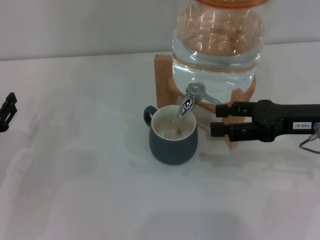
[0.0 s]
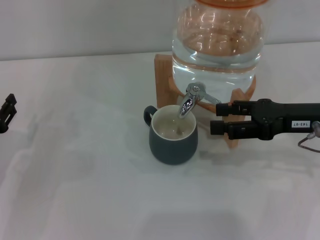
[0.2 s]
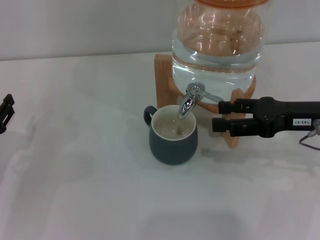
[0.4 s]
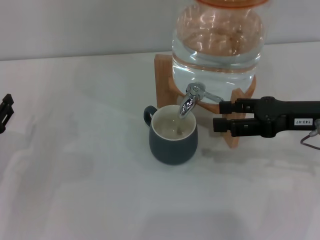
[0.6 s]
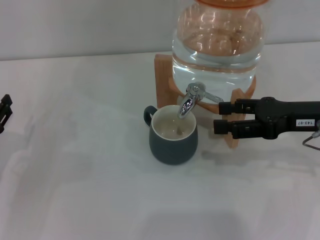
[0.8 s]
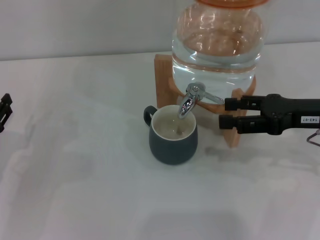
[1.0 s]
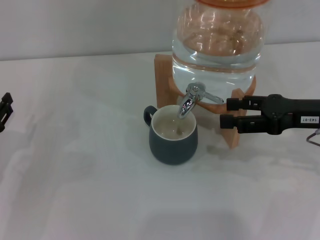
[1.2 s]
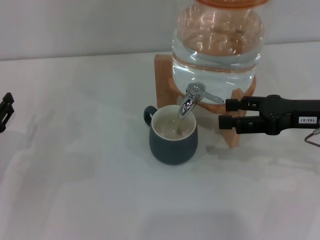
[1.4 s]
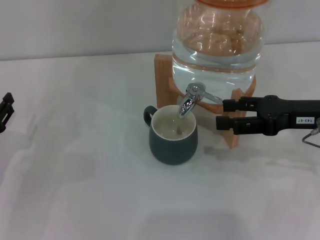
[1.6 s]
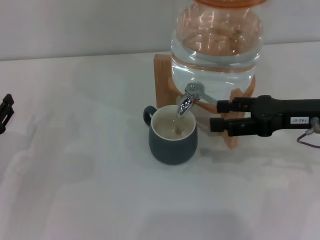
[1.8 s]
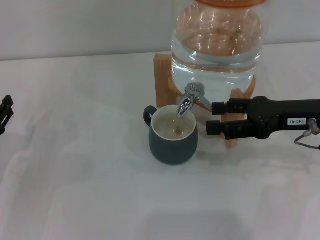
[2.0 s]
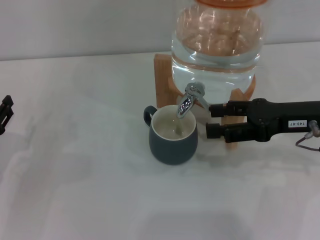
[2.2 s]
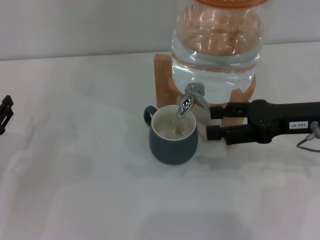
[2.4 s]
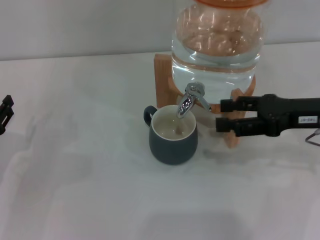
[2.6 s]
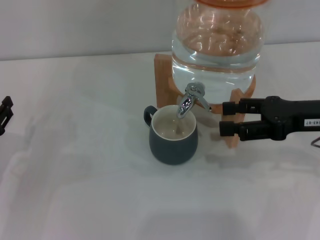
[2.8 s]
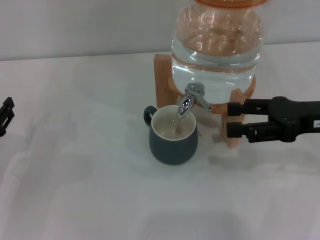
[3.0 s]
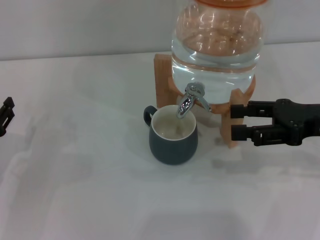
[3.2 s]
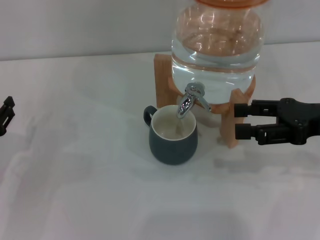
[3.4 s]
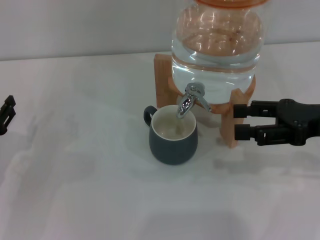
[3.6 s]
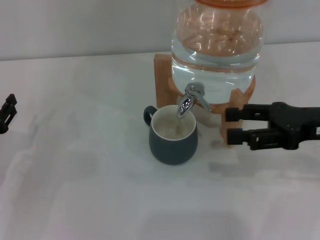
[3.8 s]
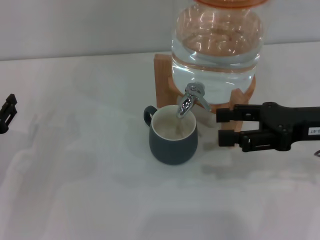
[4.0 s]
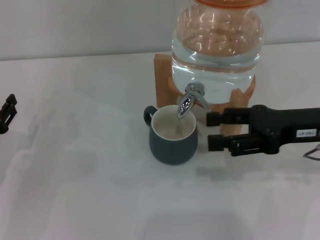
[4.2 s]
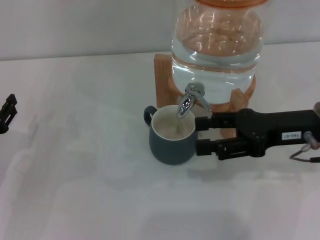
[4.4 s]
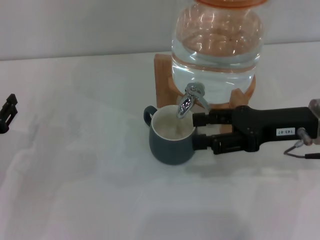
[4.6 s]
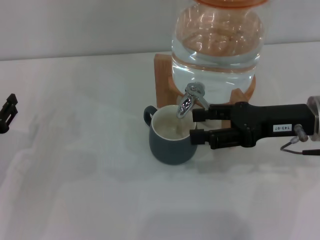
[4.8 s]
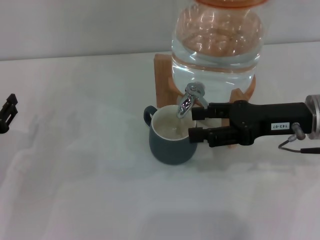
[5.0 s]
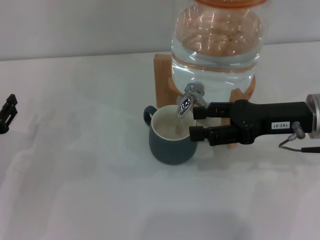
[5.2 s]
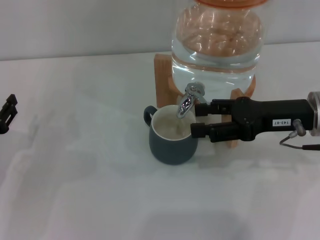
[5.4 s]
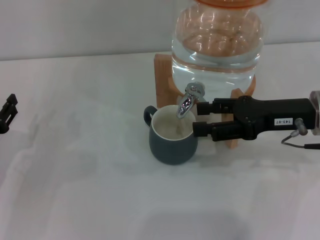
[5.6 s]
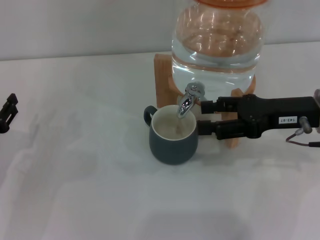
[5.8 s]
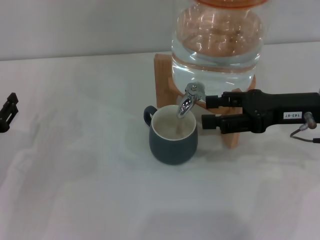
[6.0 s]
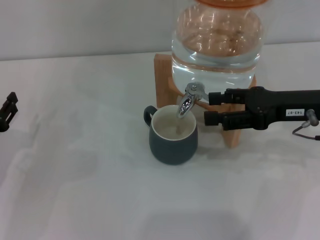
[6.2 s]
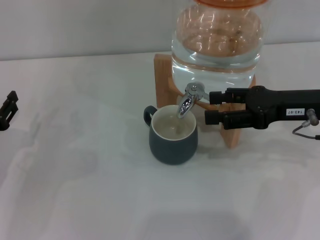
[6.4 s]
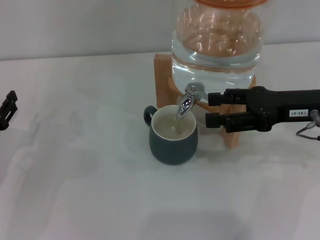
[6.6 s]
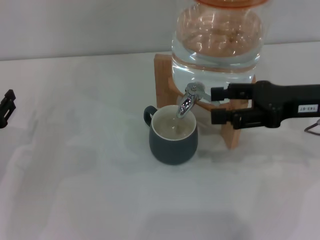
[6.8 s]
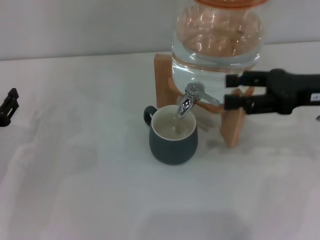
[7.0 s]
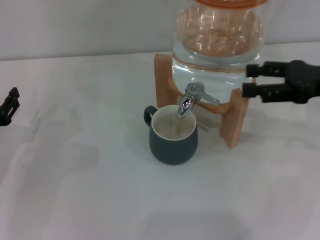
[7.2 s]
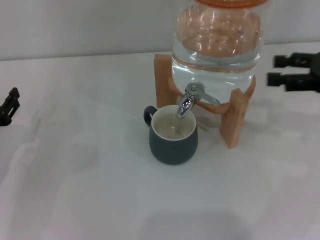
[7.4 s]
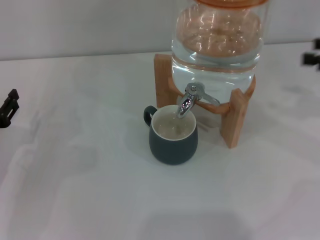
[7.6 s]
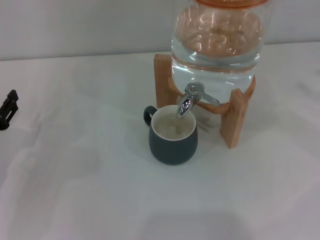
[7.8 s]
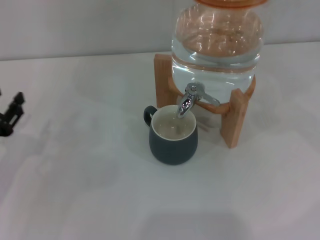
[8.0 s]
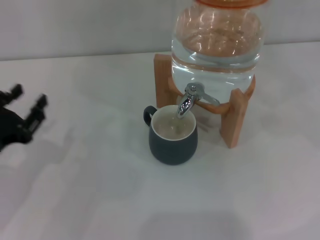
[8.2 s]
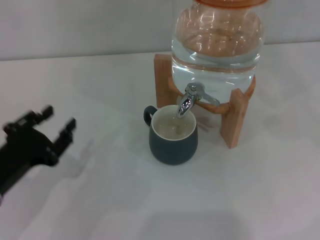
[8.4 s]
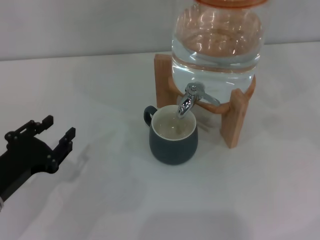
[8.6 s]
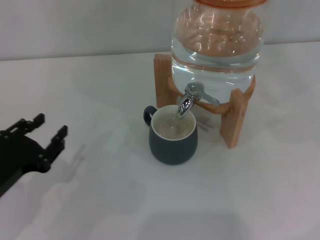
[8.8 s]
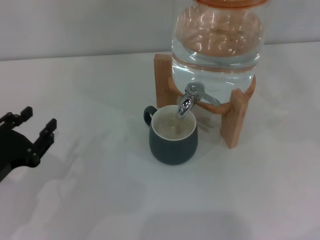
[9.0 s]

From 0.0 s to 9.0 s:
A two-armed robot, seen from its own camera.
Task of the whole recording: the left gripper pick up the black cup and place it horizontally under the faucet, the right gripper turn on the faucet to fill the cup, and then turn off the faucet.
Step, from 0.0 s to 4.4 s: Open the dispenser valve and fill the cup with water with the right gripper.
Step, from 4.8 s to 7.0 s: Close the dispenser valve with the right gripper.
From 0.0 s to 1.6 s: Both grippers stay about where they are.
From 1.6 s to 6.0 s: The grippers make only small movements.
From 6.0 s to 7.6 s: The right gripper shifts roughly 15 cm to the right.
From 7.6 s to 9.0 s: The left gripper heads backward, covering roughly 5 cm.

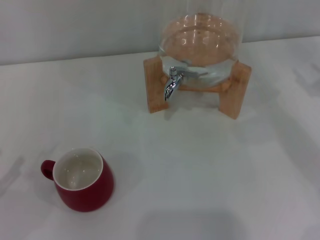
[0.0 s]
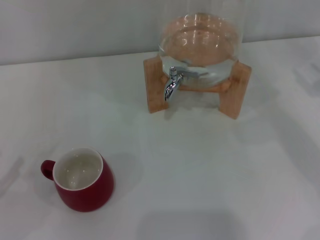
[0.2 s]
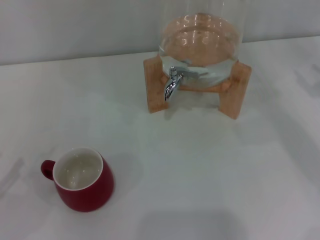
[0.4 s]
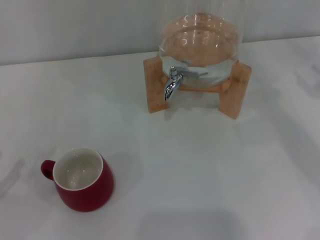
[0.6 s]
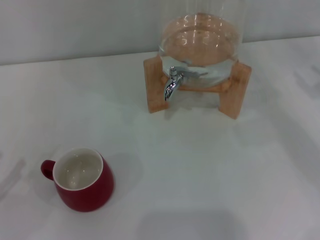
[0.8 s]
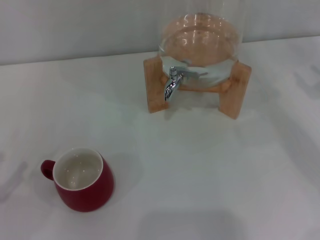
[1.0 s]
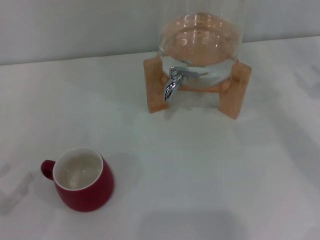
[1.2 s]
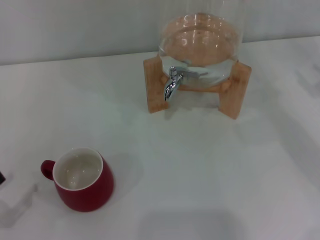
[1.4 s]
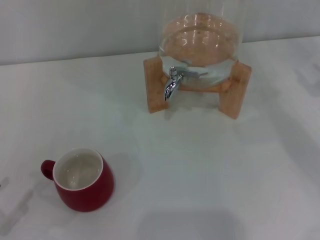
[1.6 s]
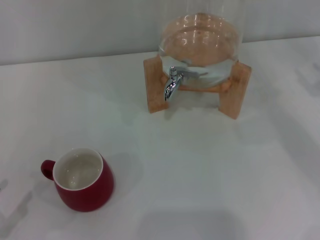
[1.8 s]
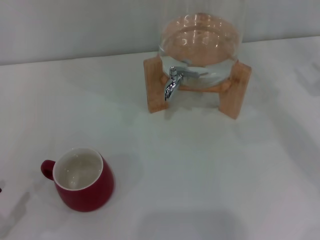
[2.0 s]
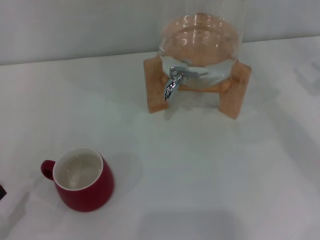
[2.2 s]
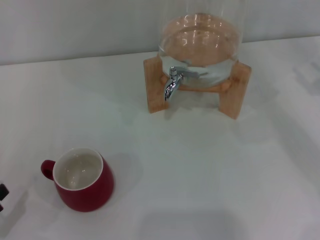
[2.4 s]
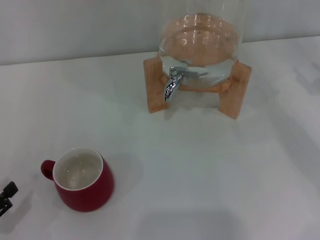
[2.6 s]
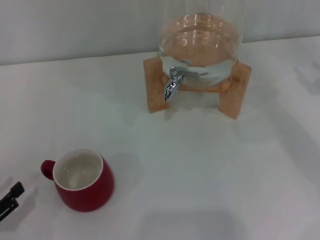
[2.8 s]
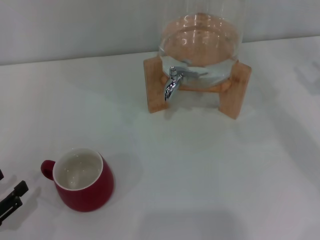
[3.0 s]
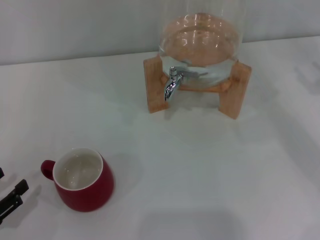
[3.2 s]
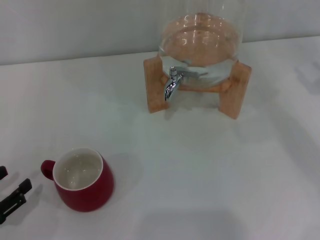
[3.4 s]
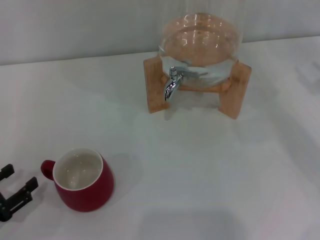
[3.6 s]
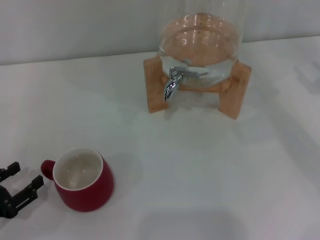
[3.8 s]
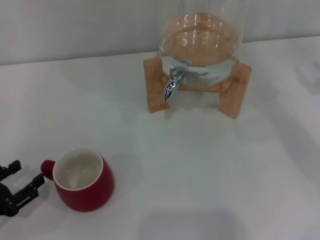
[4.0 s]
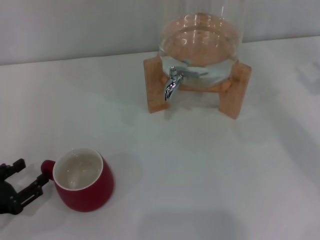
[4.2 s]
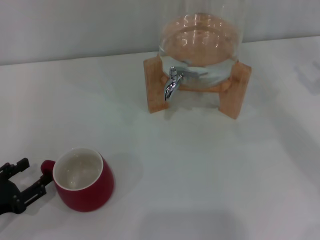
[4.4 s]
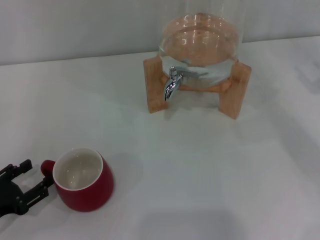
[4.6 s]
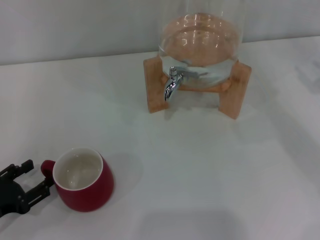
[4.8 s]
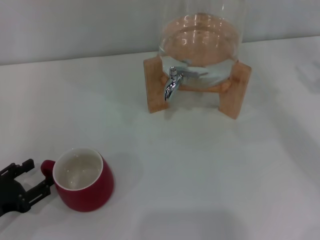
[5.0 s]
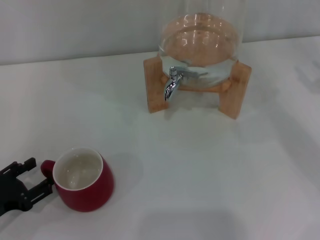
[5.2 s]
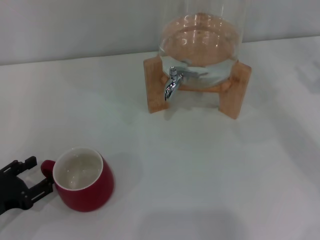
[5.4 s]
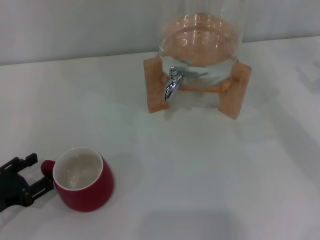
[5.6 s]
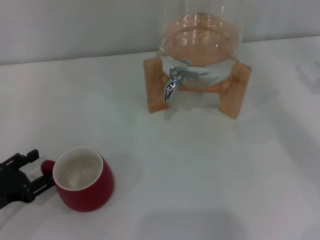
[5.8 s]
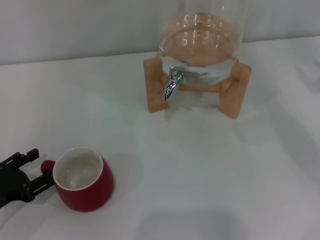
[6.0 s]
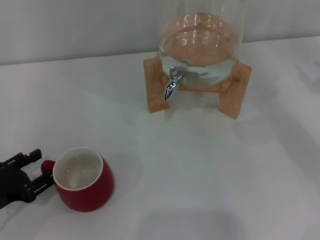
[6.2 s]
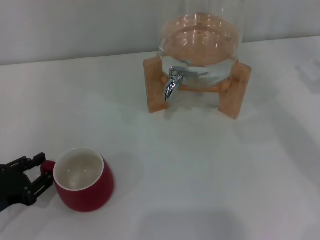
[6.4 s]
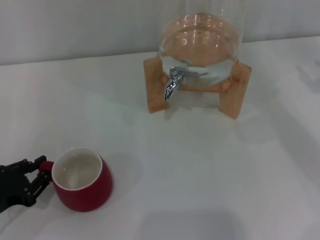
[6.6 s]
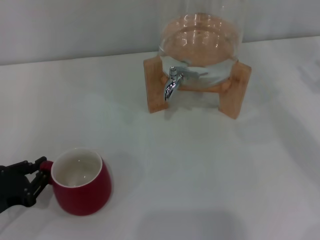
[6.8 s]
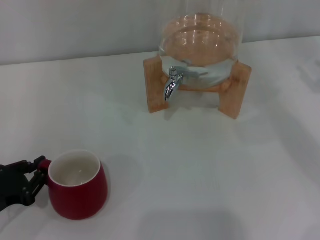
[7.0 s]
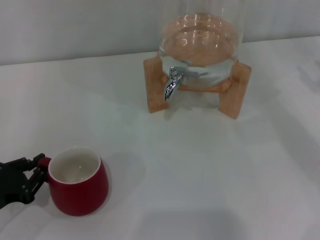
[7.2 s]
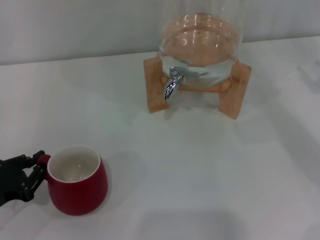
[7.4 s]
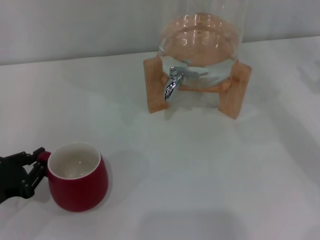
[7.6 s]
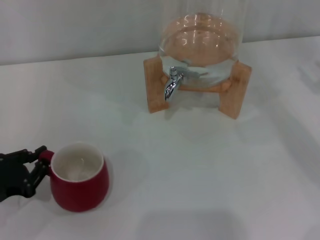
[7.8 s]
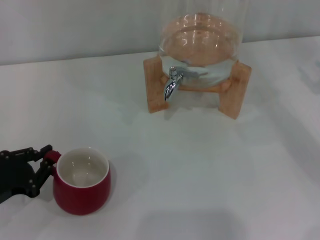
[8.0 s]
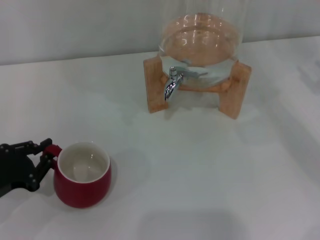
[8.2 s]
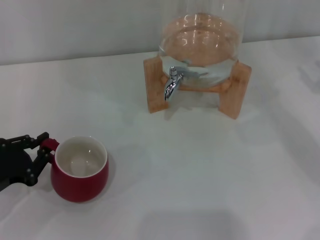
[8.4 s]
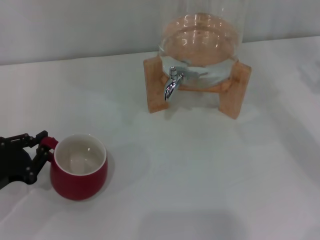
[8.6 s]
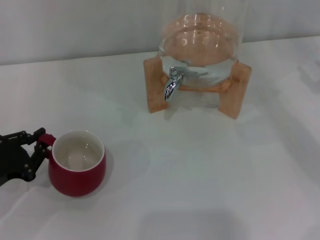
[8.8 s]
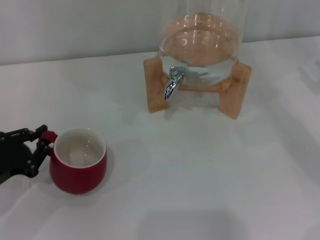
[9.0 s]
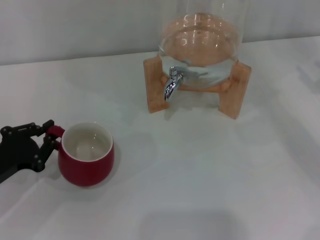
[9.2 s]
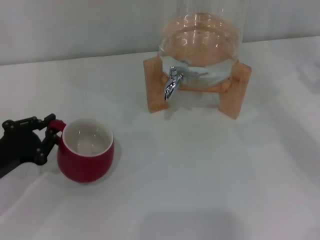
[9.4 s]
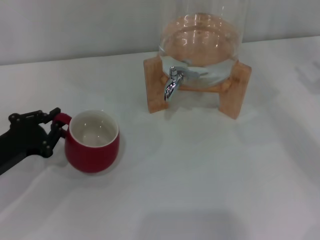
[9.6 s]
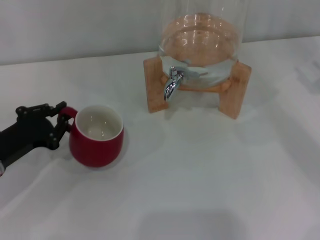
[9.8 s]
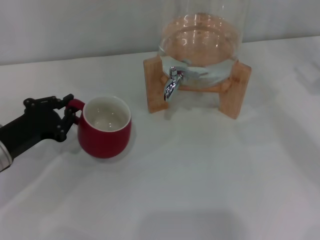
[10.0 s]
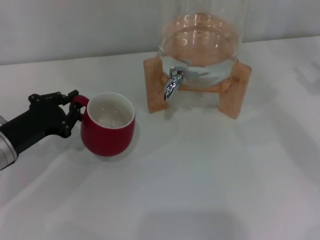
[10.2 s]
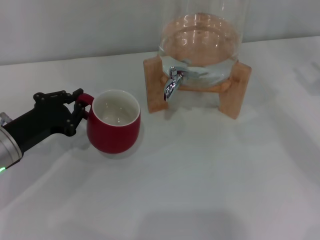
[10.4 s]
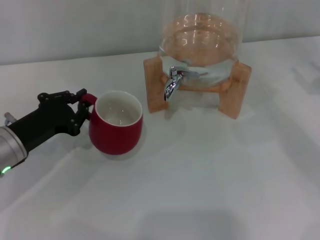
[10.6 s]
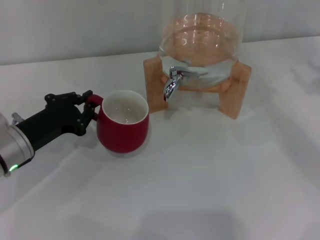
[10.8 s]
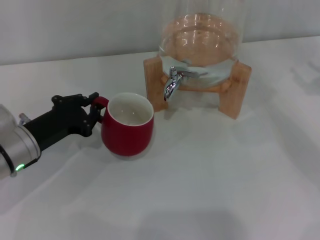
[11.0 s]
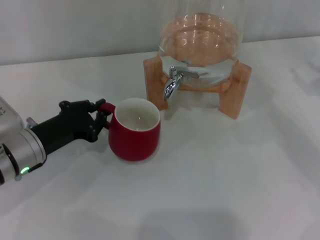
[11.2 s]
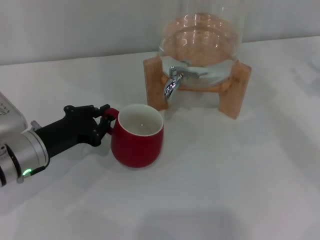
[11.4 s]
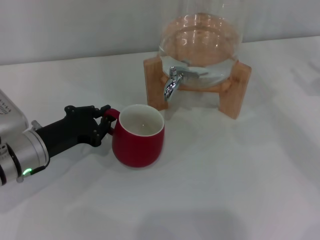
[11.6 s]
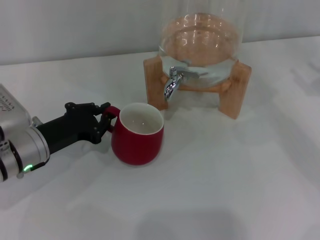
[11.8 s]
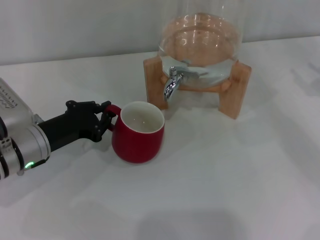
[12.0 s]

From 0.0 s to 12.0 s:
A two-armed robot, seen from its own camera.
Task of the whole recording: the left gripper pick up the red cup and place it horizontally under the faucet, the right gripper turn on the faucet to fill the cup, and then turn off the faucet.
From 3.0 s to 4.4 s: The grippers make only small movements.
From 4.4 s to 6.0 s: The grippers move only a little.
From 6.0 s to 7.6 s: The left gripper closes up.
From 7.6 s to 9.0 s: The grippers move only a little.
From 9.0 s to 10.4 s: The left gripper shifts about 10 cm to the right and forward.
From 10.4 s to 12.0 s: There are only small adjustments of the grippers.

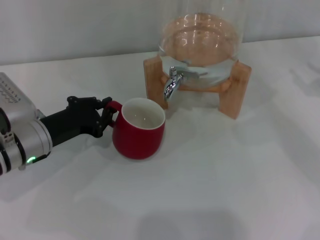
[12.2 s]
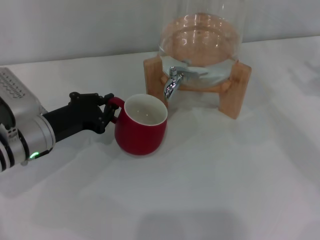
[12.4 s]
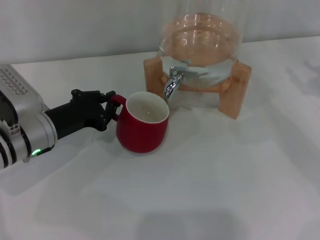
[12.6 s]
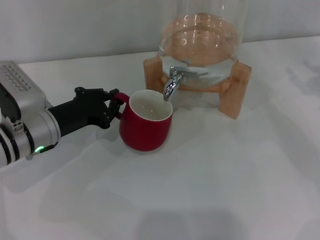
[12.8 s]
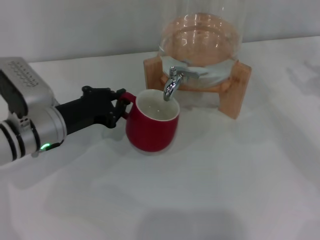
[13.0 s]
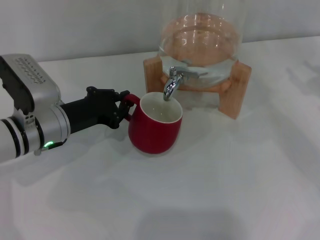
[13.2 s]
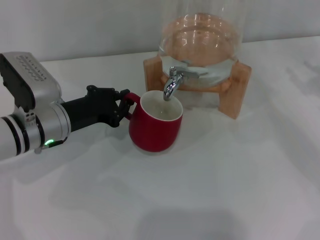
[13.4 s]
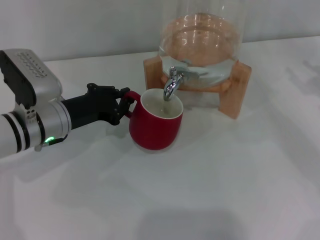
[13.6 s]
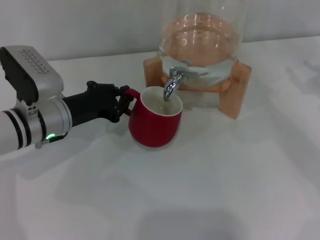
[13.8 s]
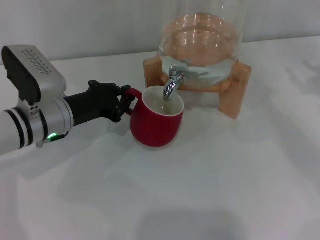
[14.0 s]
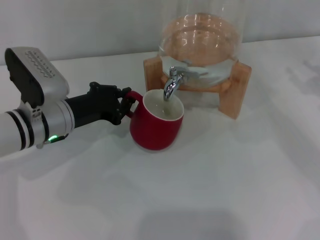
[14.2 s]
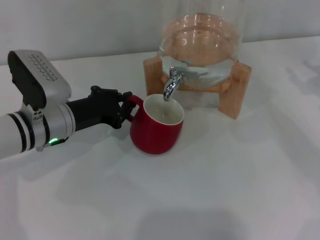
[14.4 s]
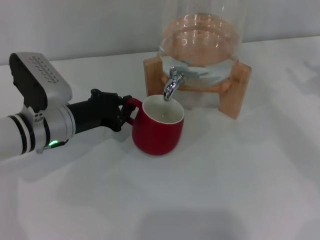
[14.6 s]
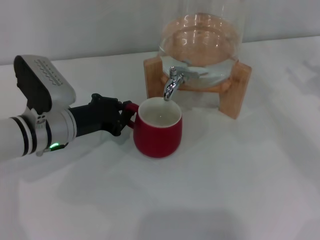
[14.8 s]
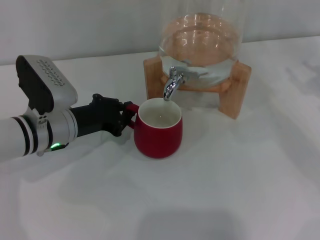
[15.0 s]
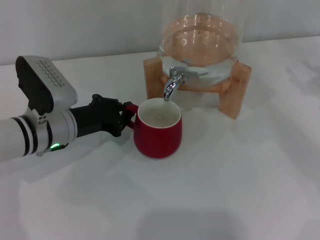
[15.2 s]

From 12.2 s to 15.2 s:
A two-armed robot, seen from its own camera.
Task of the whole recording: the left gripper pick up the red cup and place it horizontally under the faucet, the right gripper turn on the faucet to fill the cup, and then turn off the faucet.
From 12.2 s to 15.2 s: The grippers stay close to where they were, moving slightly.
